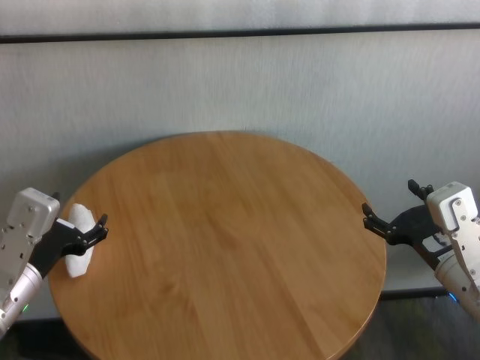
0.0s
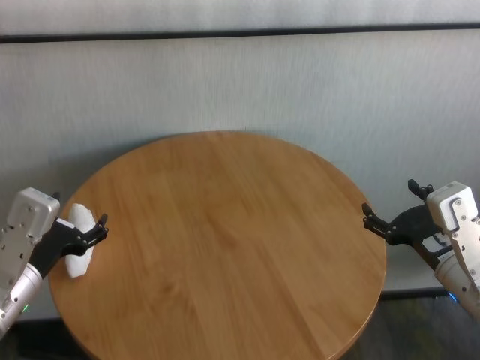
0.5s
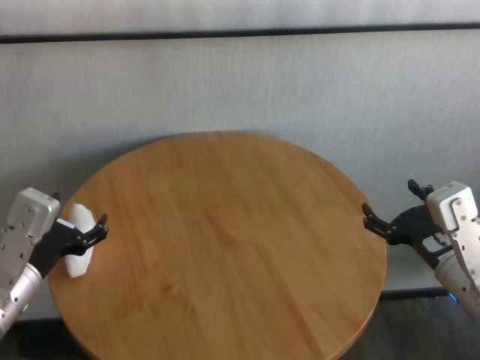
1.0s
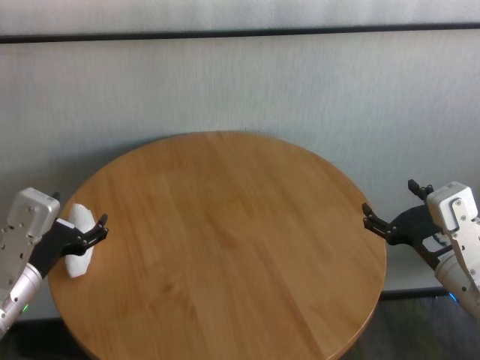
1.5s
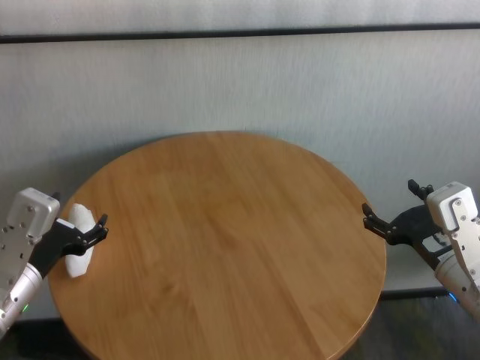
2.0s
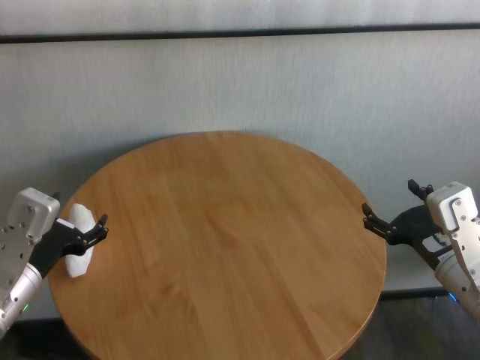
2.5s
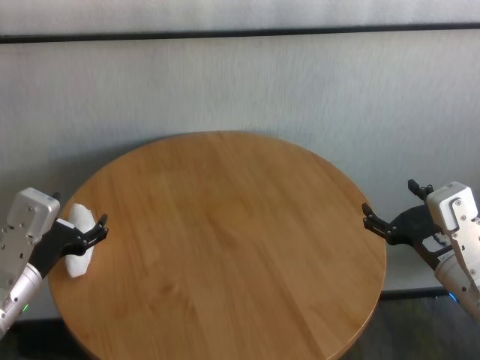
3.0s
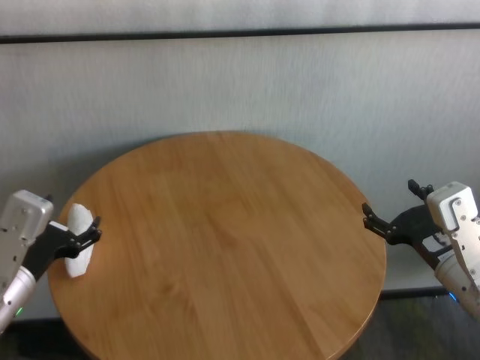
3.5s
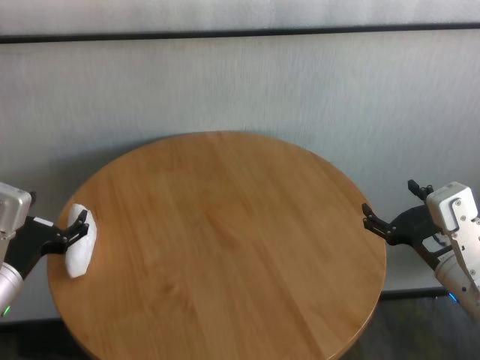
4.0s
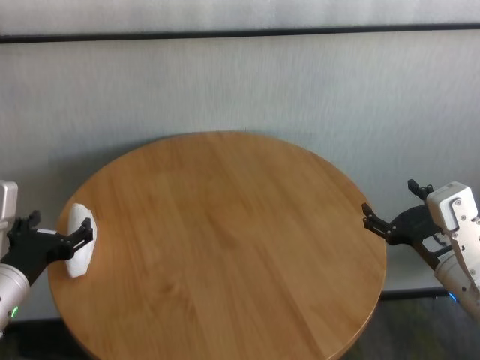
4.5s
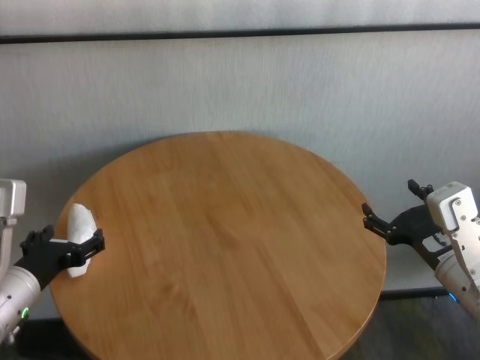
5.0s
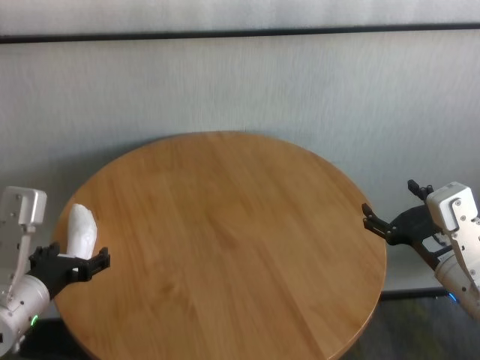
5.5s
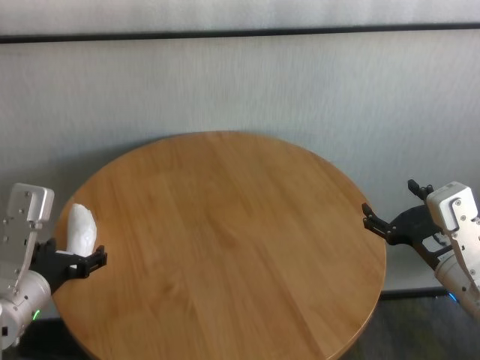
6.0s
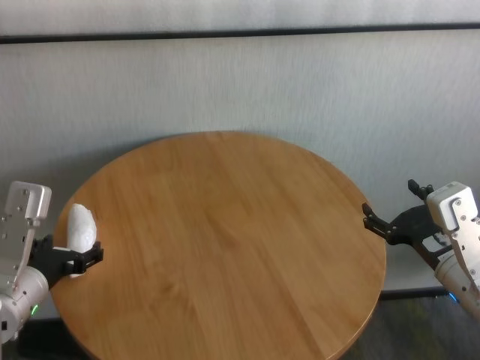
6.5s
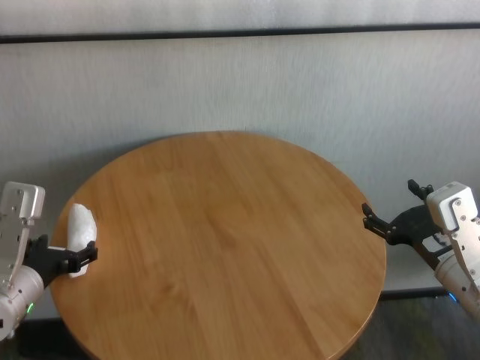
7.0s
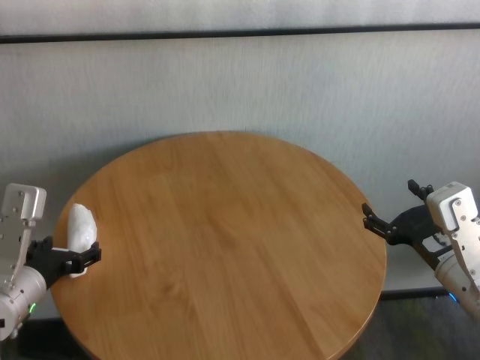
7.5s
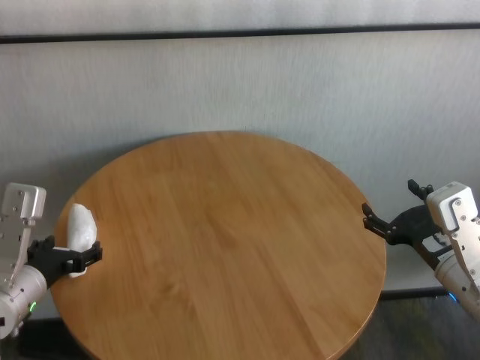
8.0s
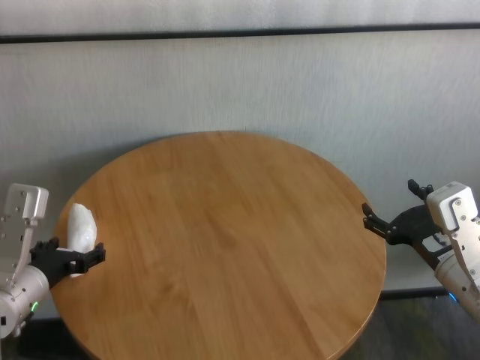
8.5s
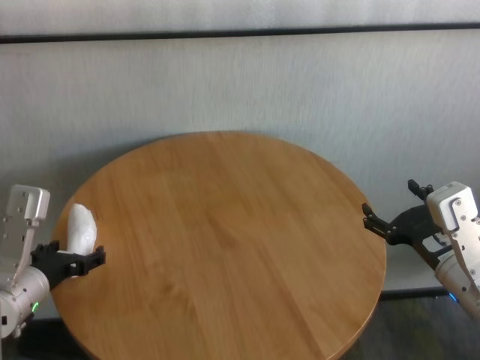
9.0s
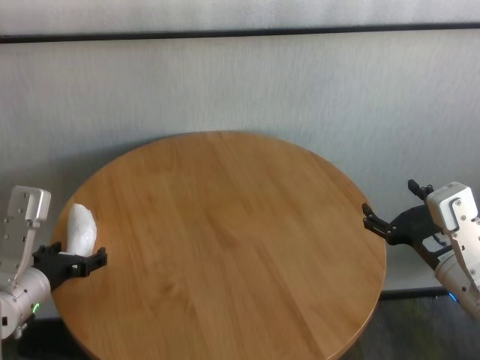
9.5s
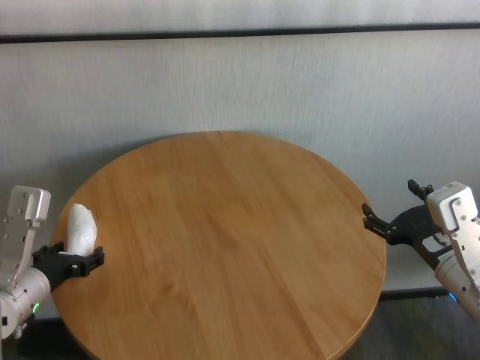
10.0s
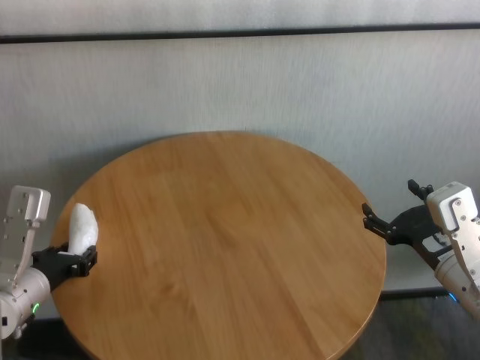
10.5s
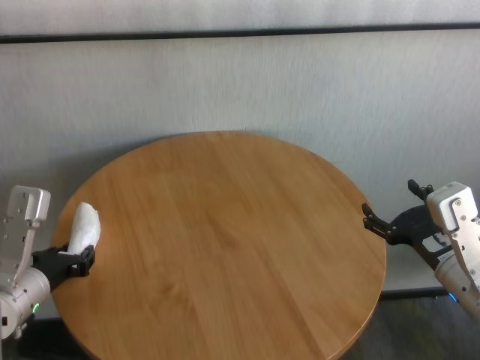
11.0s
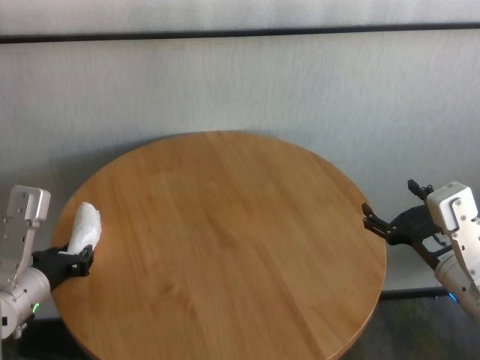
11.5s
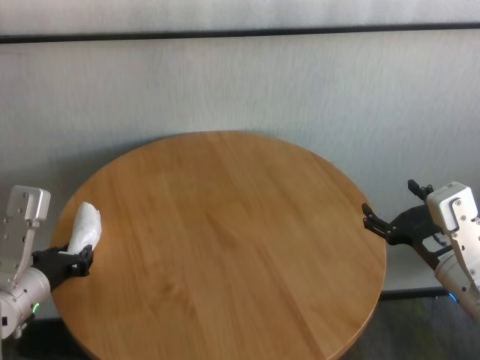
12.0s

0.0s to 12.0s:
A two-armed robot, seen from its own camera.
Task of the whole recording: One hand took the sandbag from the other hand and placed it on the table.
Step, 0.0s to 11.0s: Grasp the paper ball with left gripper.

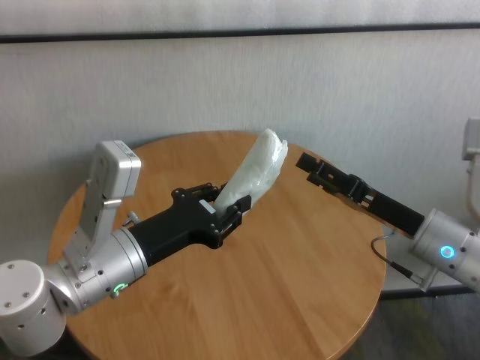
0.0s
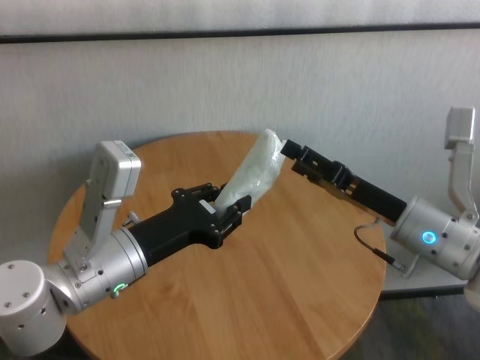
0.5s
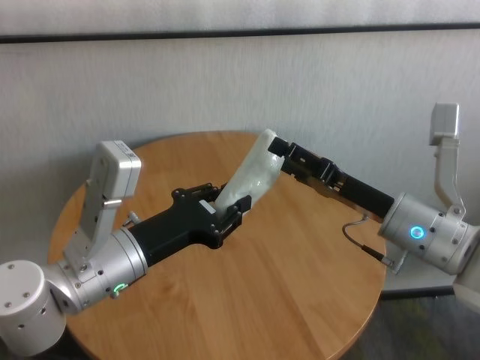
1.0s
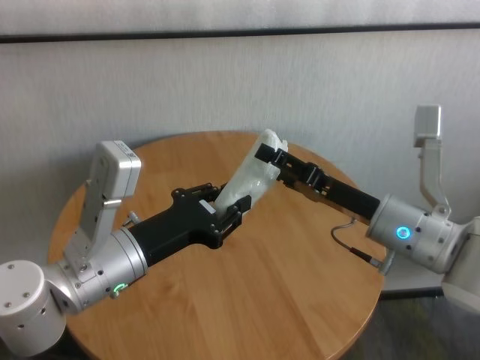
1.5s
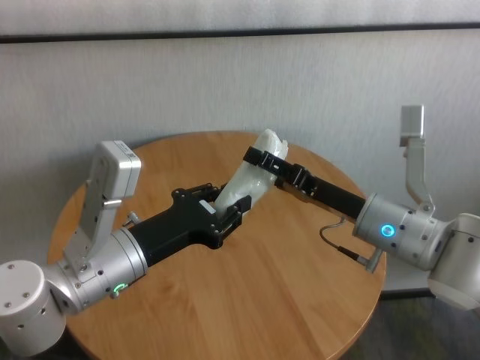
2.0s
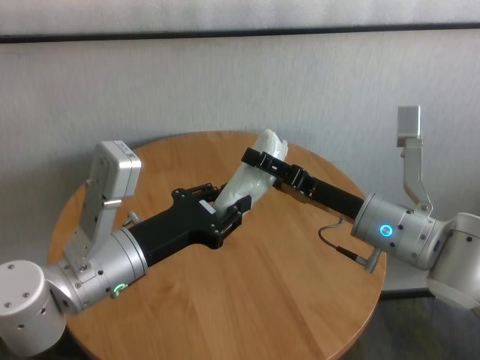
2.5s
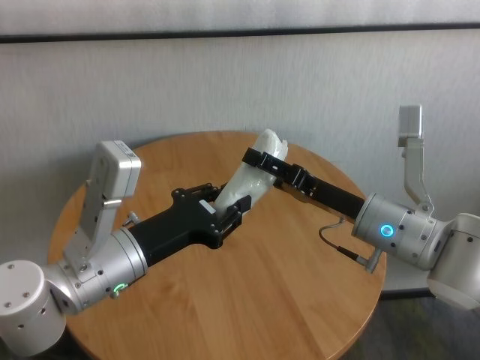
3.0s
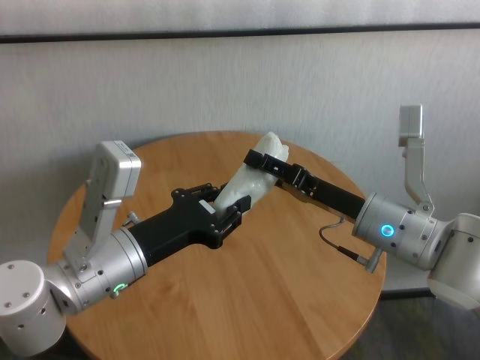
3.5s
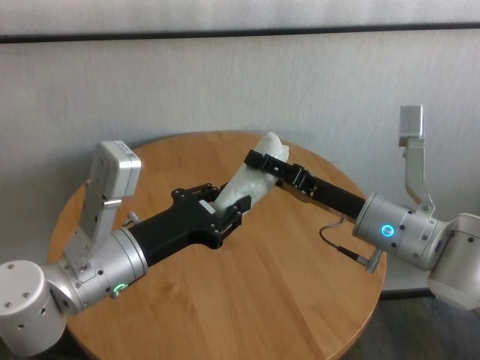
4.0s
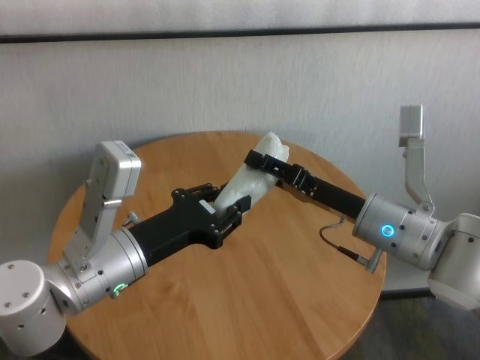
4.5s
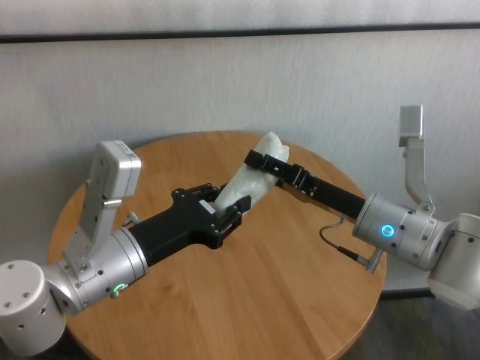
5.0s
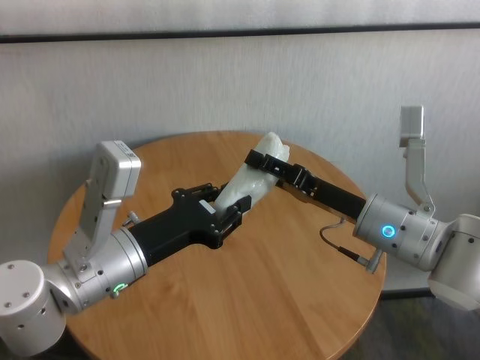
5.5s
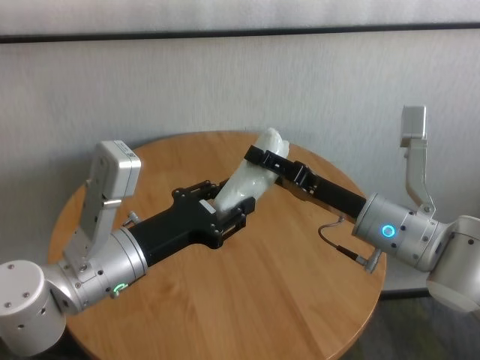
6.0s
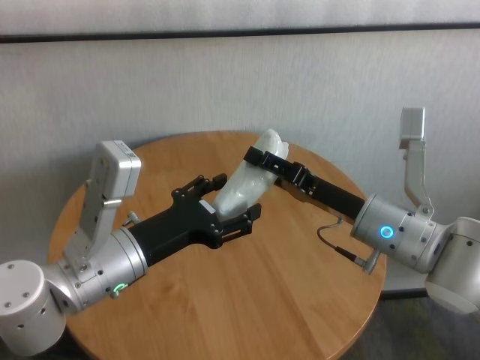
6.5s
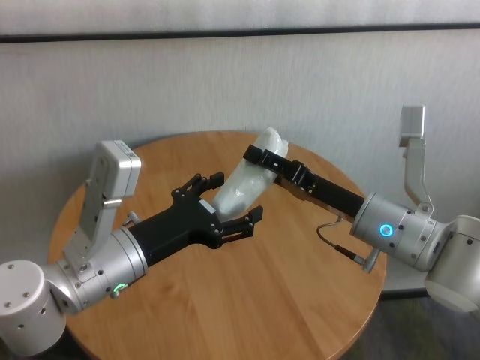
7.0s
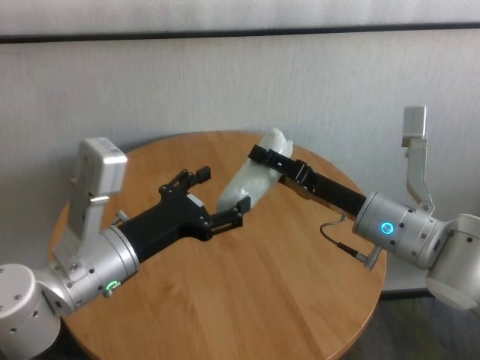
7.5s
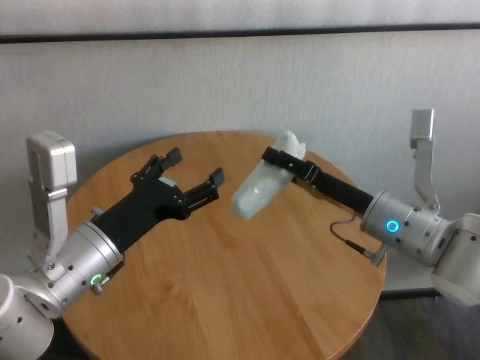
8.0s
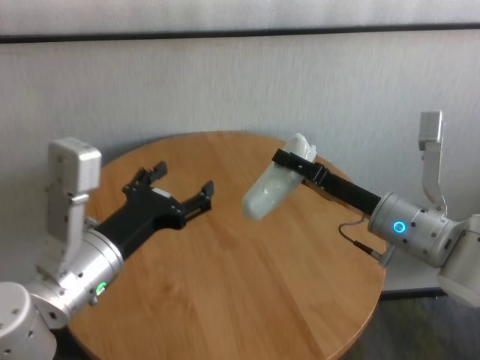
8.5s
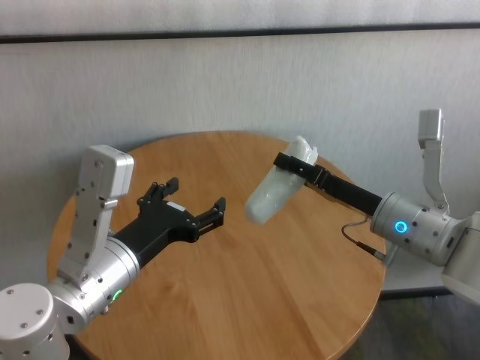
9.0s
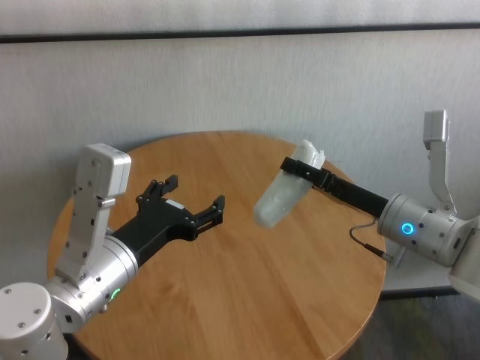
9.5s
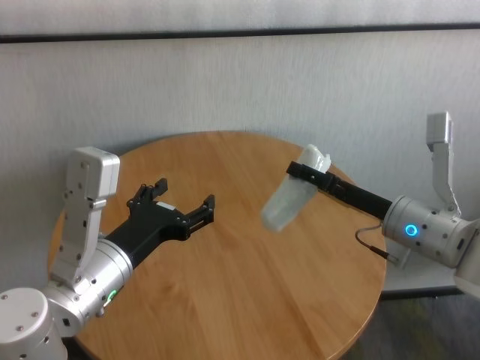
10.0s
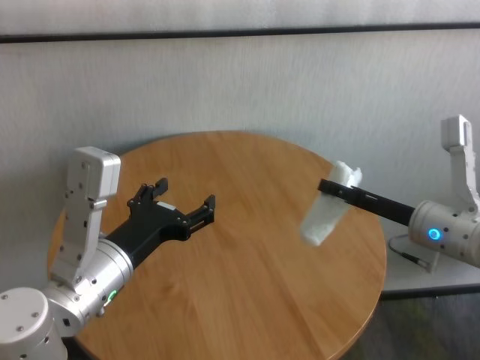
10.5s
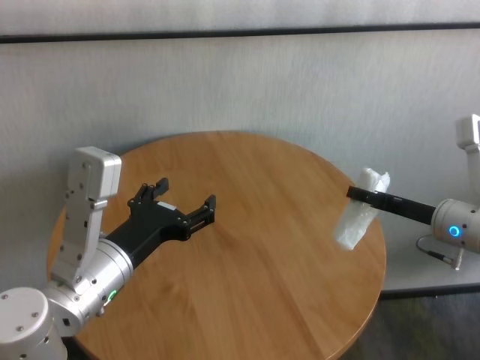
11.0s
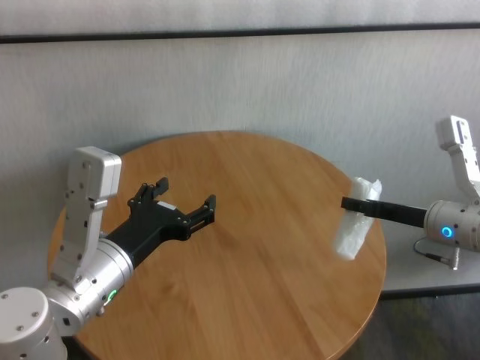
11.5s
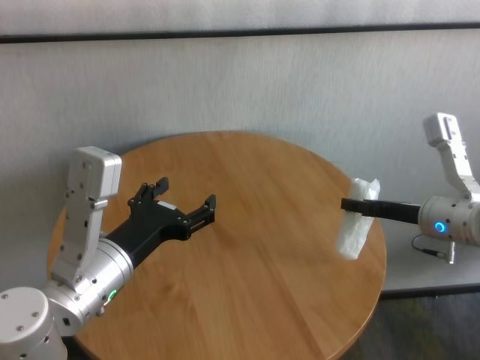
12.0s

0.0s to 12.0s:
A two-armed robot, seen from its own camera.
Task of the whole recording: One hand took the sandbag from the other hand and placed it on the table.
Step, 0.0s to 7.5s: Pass the paper ball to the right gripper.

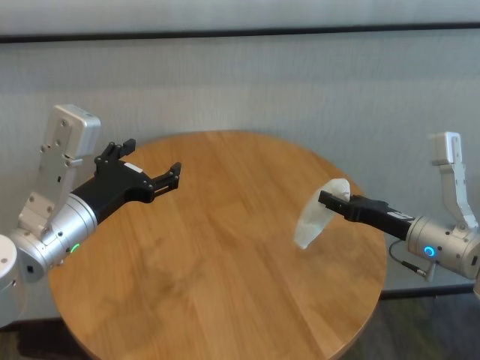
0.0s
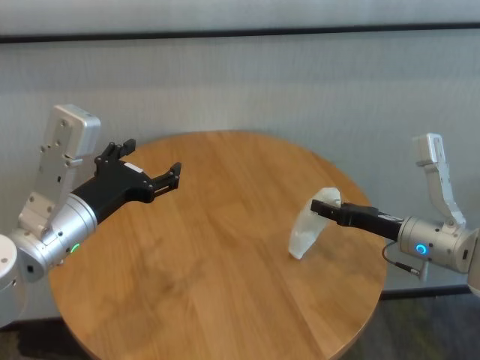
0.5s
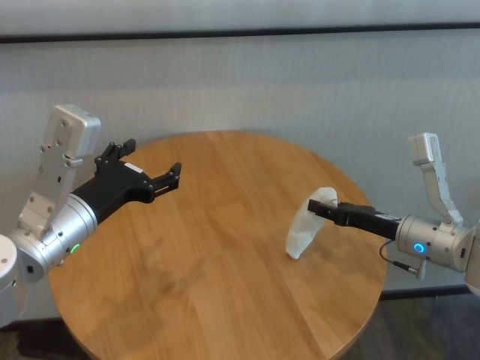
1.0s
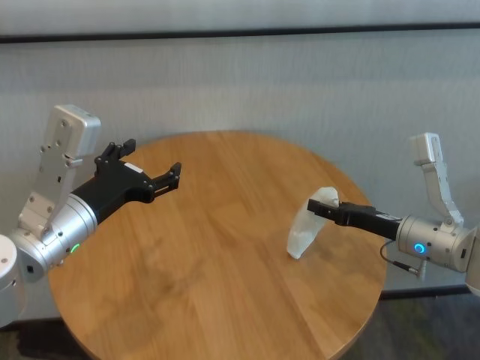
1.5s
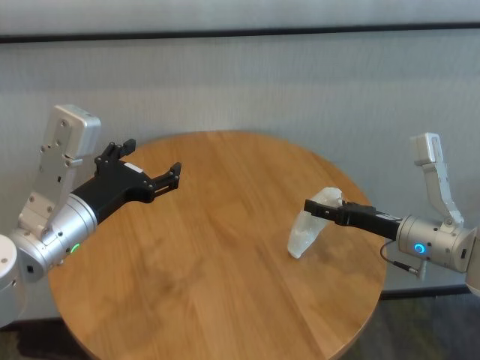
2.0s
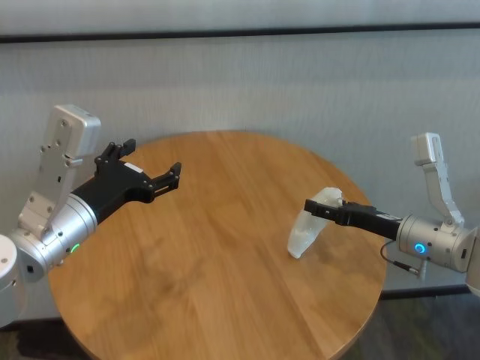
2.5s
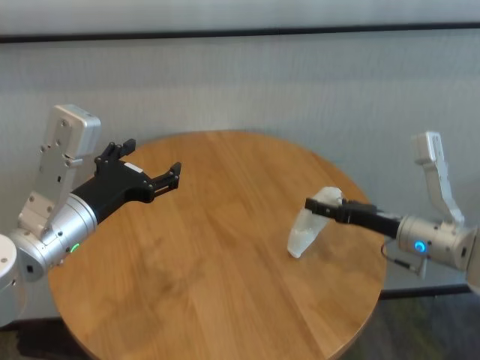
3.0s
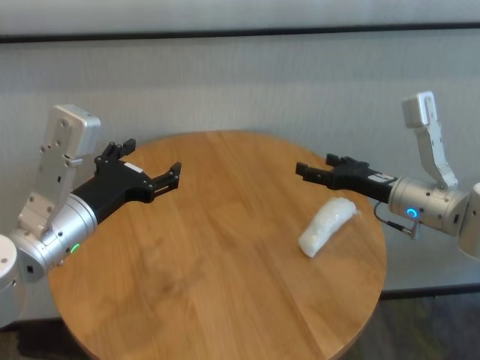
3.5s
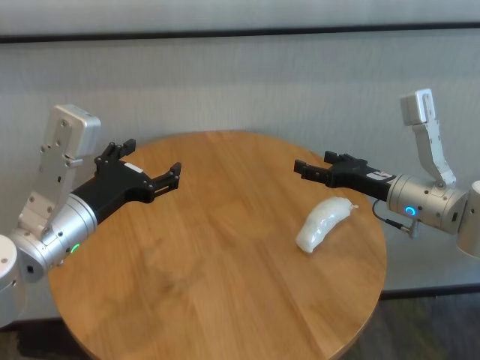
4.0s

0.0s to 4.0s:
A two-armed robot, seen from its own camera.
Task of the whole recording: One hand took the sandbag from the other hand and placed it on the table.
Step, 0.0s to 3.5s: Place the paper ball on the table with right gripper.
